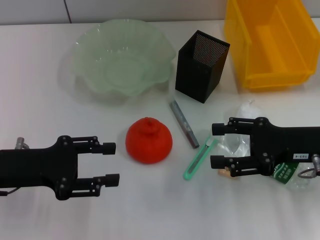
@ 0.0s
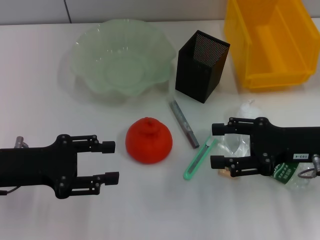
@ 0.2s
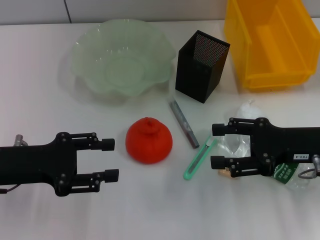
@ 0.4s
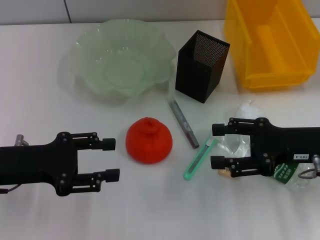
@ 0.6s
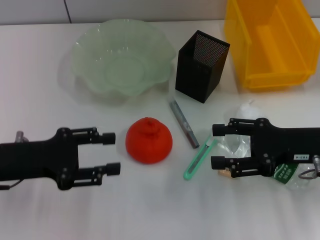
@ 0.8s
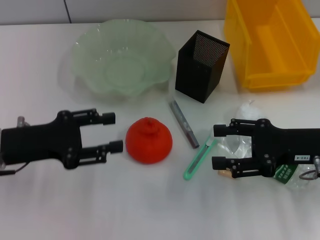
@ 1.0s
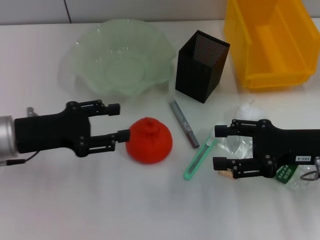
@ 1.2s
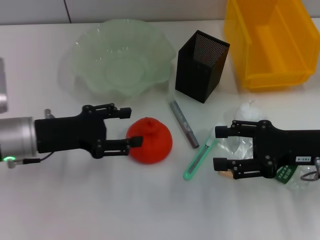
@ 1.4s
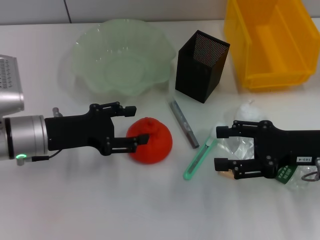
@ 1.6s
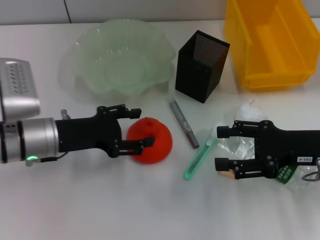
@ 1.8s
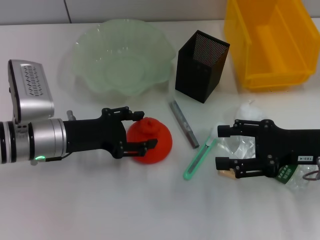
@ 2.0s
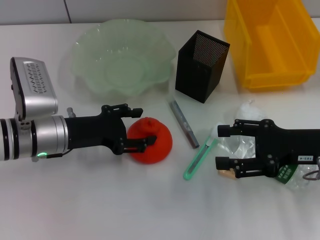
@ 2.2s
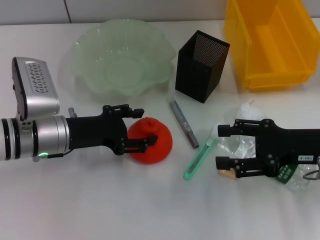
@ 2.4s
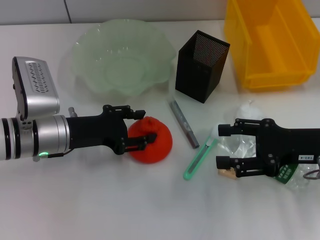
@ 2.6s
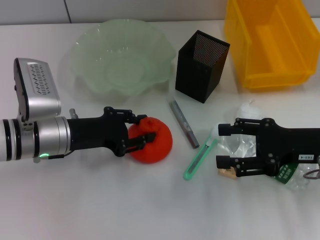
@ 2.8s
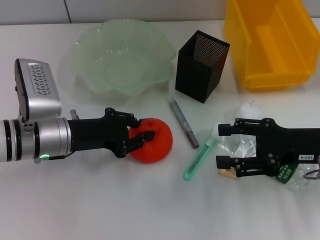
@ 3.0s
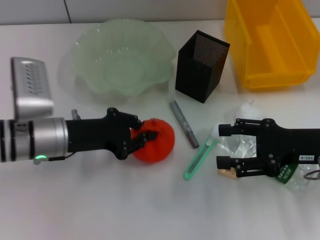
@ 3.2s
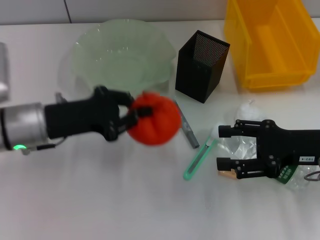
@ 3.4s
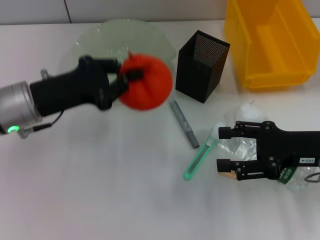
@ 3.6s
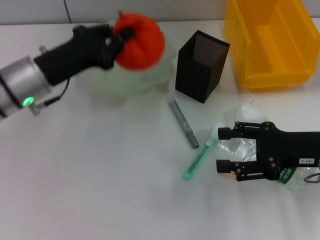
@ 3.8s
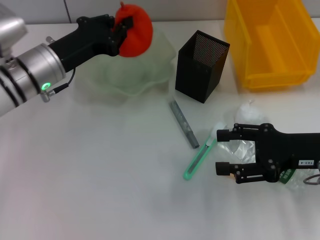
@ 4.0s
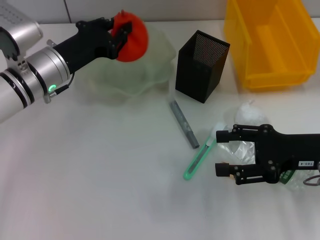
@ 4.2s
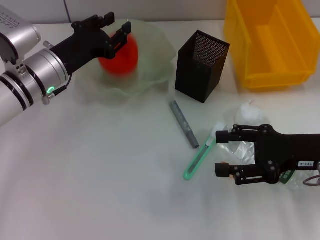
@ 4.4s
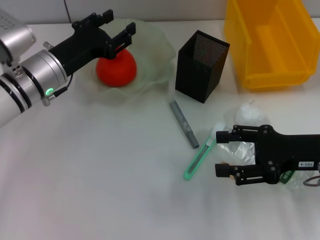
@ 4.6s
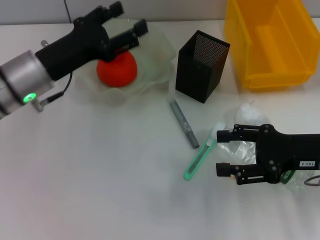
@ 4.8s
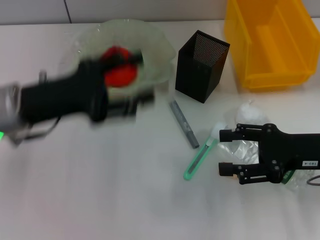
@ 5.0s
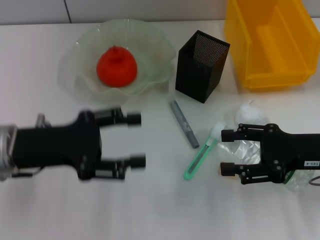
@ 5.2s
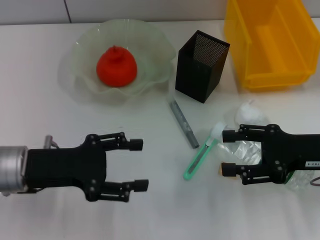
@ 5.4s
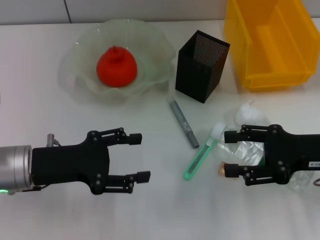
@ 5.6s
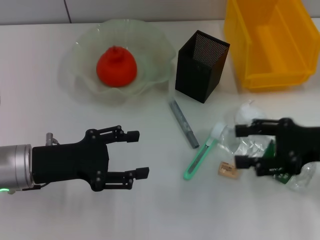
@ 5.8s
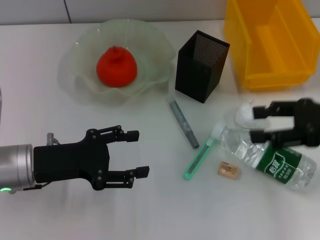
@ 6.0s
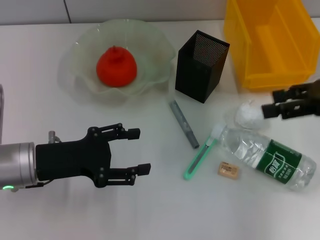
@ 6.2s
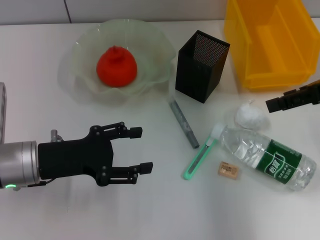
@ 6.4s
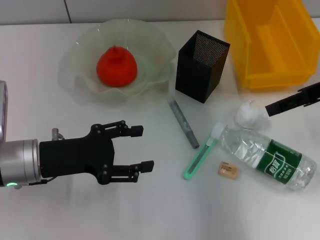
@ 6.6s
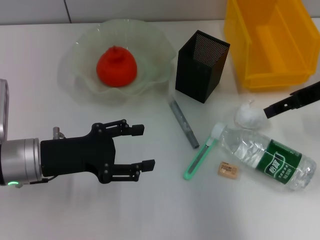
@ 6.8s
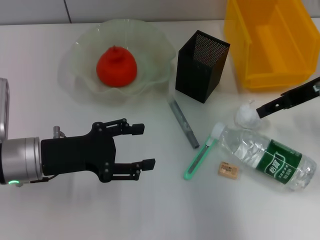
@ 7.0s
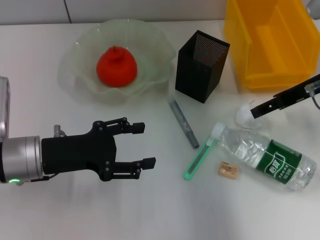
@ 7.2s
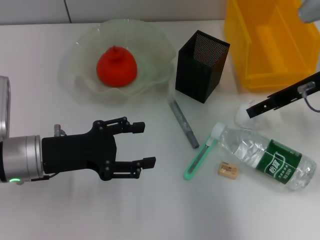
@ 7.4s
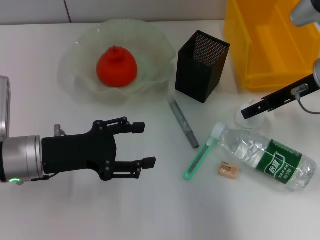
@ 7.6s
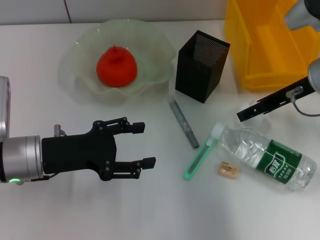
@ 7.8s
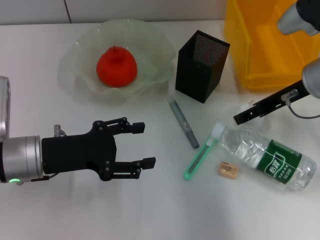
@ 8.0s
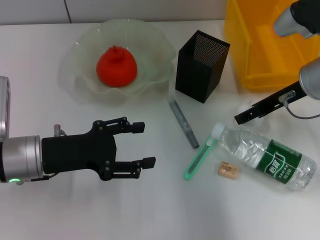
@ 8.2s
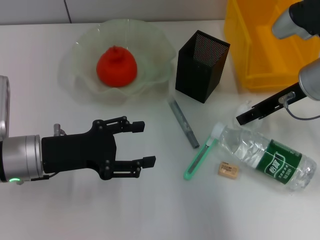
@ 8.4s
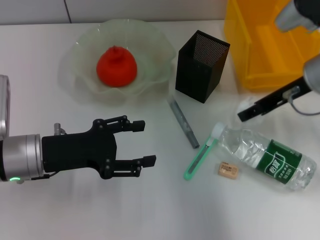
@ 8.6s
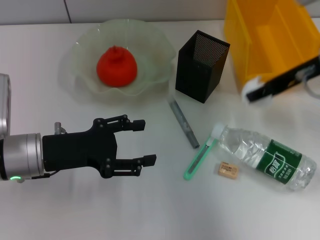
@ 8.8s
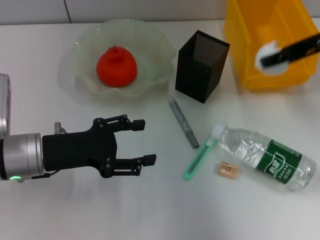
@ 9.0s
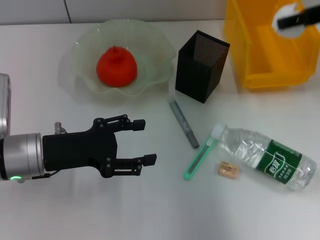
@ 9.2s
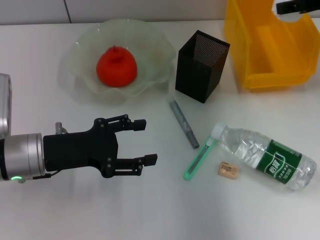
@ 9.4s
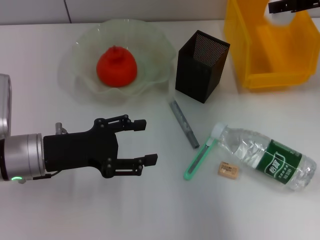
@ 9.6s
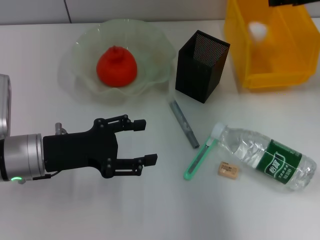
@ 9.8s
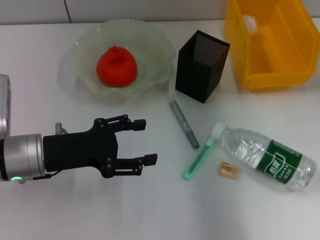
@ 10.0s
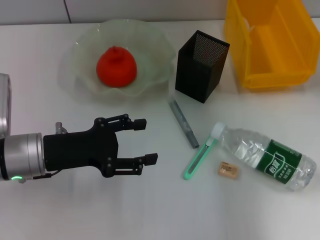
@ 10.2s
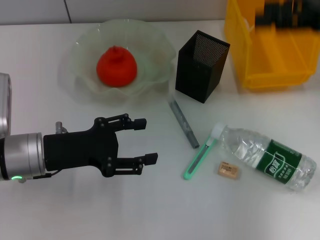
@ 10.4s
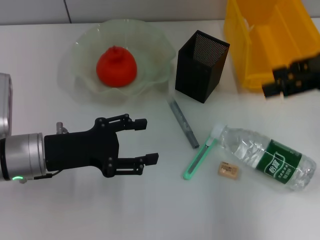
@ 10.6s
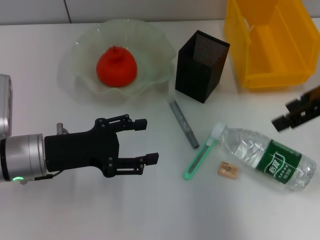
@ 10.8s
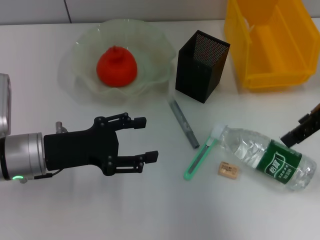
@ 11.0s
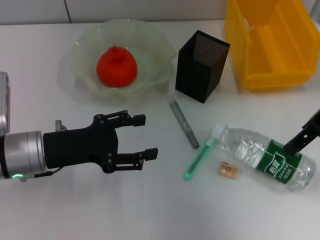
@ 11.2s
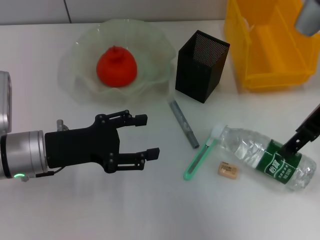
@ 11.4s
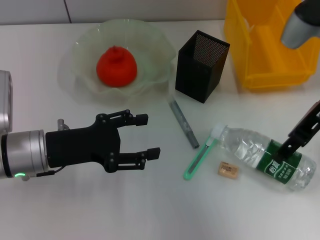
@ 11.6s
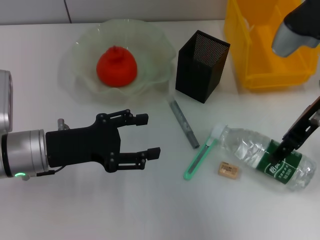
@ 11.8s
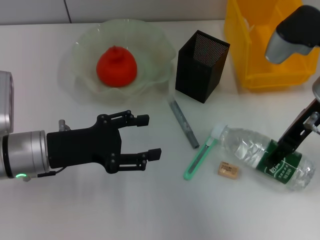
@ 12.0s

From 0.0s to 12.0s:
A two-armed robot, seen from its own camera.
Step, from 0.0s to 2.8s: Grab the orange with the left hand.
Step, from 3.0s to 4.4s: Place the orange into the fruit bowl with the left hand.
Step, from 4.6s to 8.2s: Grab the paper ball with the right hand.
Step, from 8.4s to 9.8s: Place the paper ball into the trash can with the right hand.
From 0.0s to 1.6s: The left gripper changes place by roughly 5 cm.
From 1.6s to 3.0s: The left gripper closes up.
From 3.0s to 4.4s: The left gripper travels forward by some 5 cm, and closes its fingers.
From 4.4s to 6.0s: The left gripper moves backward, some 10 cm, and opens up. The right gripper moves upward, some 5 cm.
From 6.0s to 7.6s: The right gripper heads forward and to the left, covering roughly 10 cm.
From 7.6s to 9.0s: The right gripper goes approximately 10 cm upward, and closes up.
From 9.0s to 10.4s: The right gripper reaches some 5 cm forward, then returns, and opens its fingers.
From 10.4s to 12.0s: The right gripper goes some 10 cm to the left and downward.

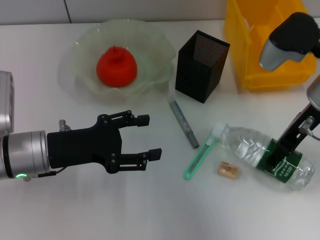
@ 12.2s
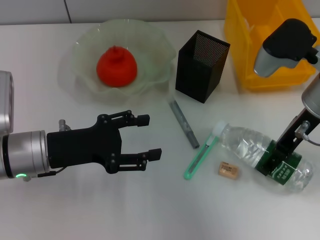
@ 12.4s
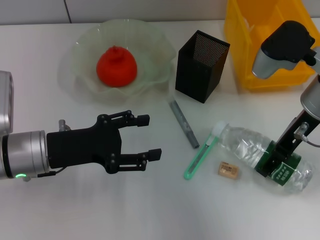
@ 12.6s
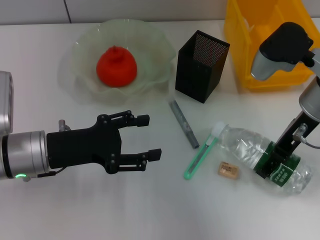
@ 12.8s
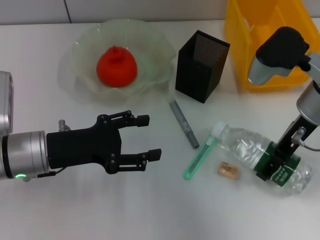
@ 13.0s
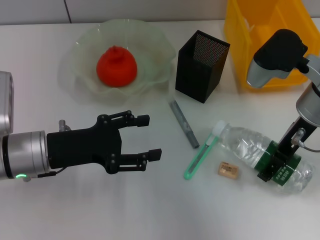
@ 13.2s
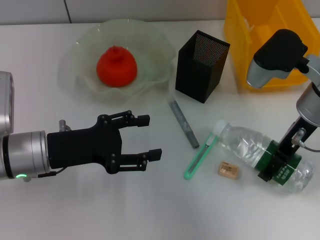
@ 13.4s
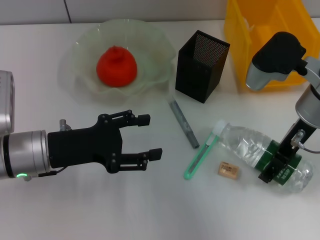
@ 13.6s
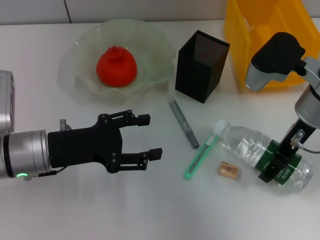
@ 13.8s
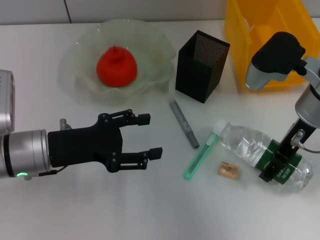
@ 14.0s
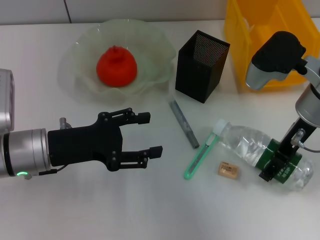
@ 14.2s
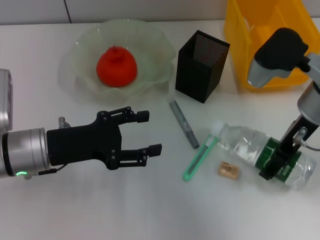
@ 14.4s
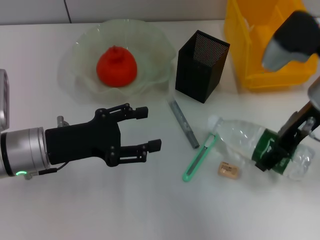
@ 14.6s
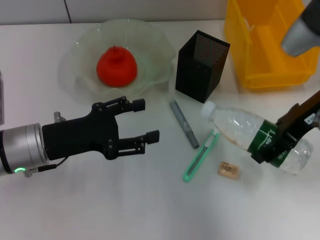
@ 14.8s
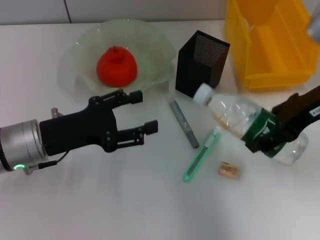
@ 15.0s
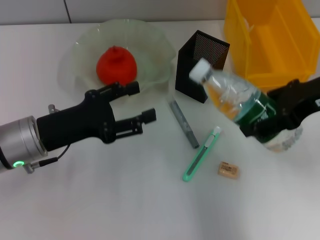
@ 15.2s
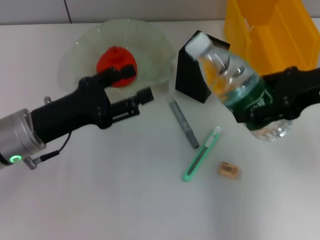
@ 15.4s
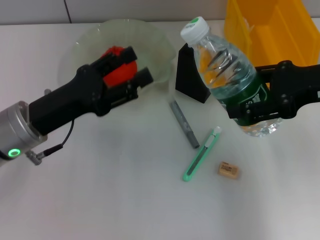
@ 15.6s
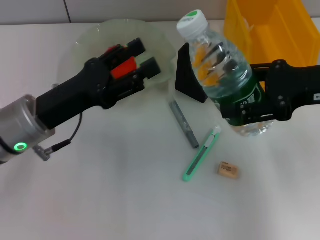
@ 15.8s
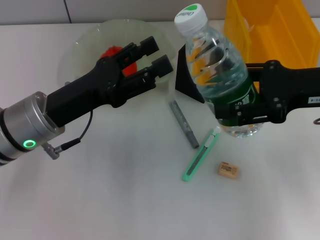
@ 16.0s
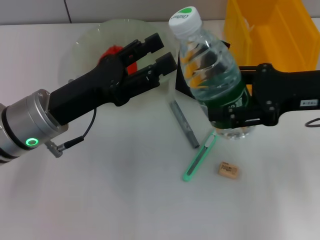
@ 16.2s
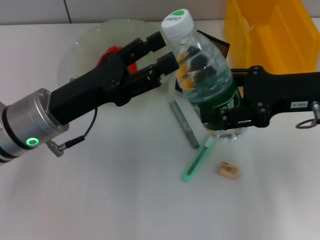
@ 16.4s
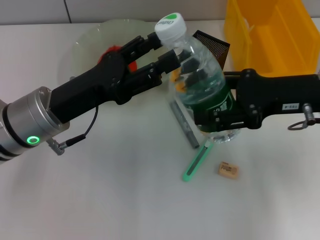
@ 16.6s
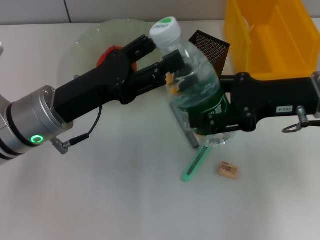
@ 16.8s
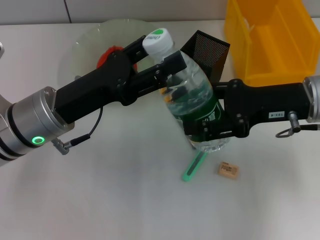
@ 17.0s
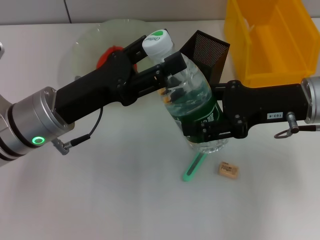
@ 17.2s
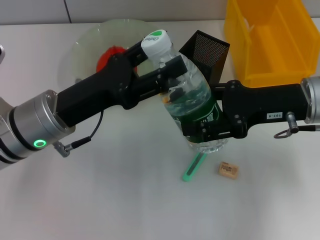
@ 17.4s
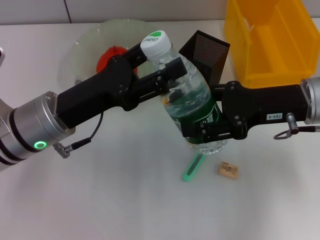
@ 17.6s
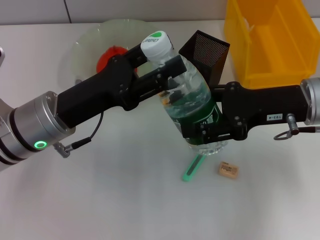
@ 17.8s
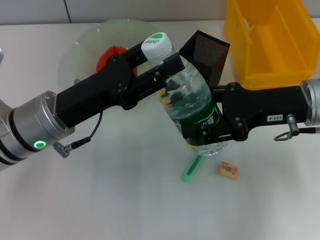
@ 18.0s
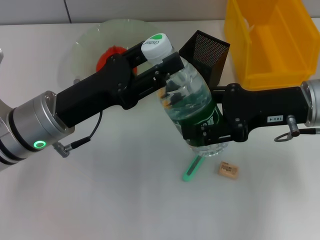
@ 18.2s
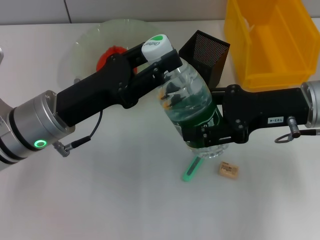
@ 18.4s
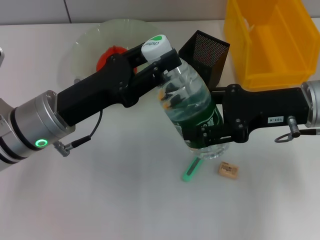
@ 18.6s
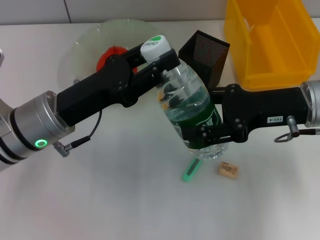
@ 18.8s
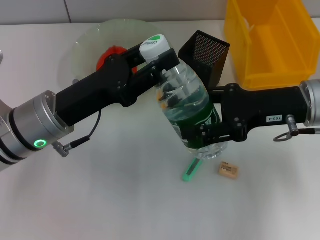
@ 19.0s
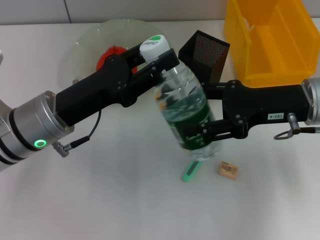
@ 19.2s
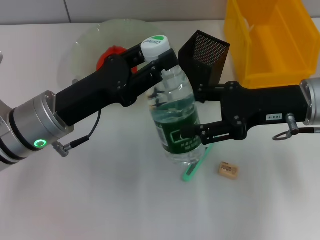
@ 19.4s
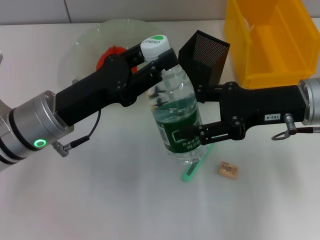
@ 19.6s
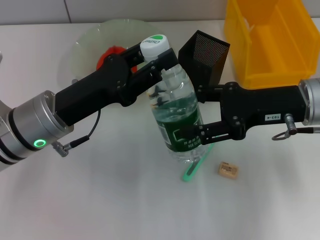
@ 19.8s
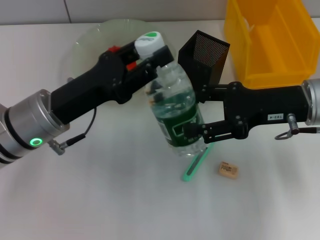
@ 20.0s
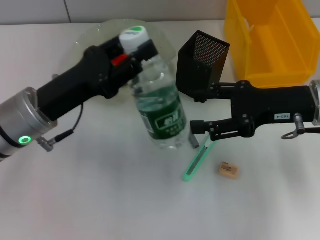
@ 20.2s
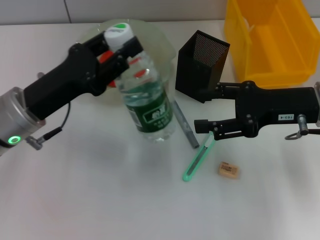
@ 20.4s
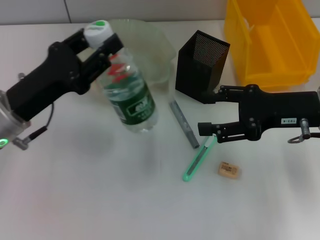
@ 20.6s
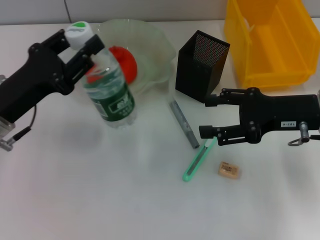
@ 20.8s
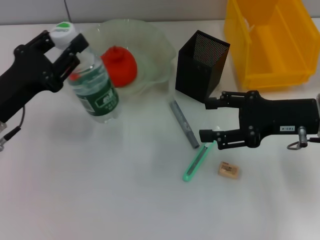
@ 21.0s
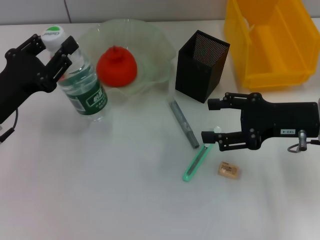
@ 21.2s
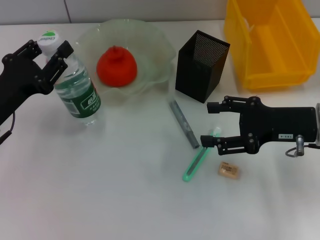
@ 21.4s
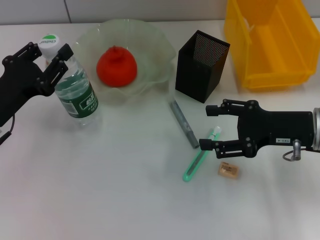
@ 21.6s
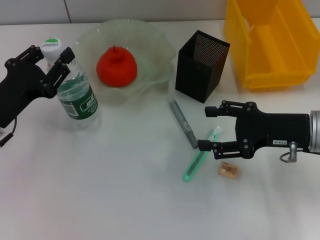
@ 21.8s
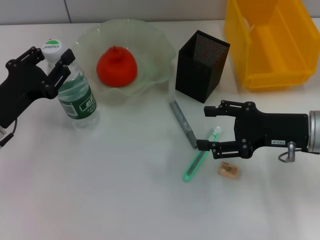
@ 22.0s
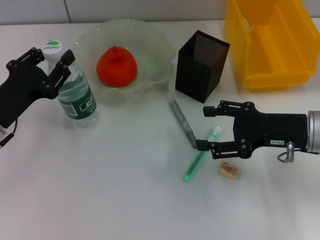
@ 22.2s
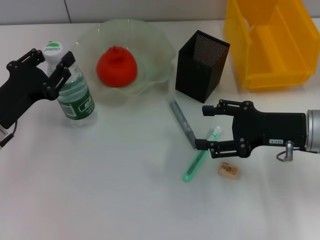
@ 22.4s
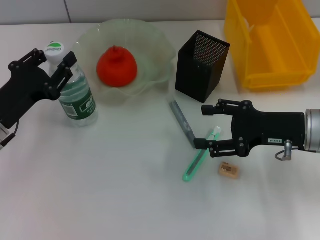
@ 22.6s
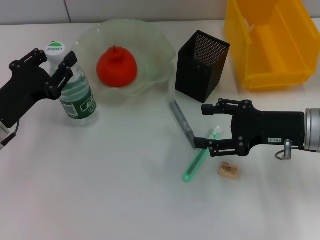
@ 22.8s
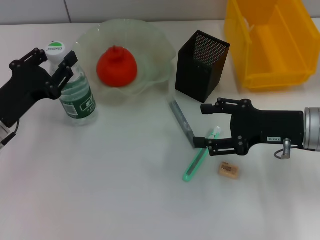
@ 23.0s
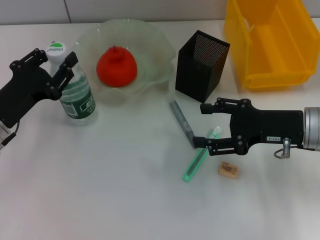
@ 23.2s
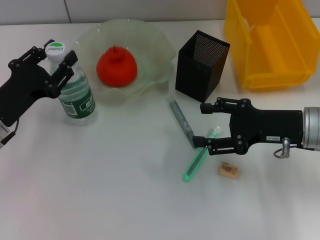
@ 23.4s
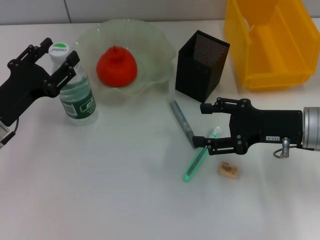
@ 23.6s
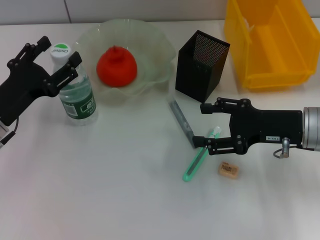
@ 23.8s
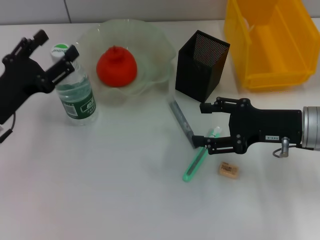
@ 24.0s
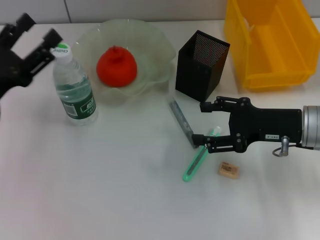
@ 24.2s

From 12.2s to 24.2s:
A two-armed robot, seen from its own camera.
Step, from 12.2s to 14.2s: Grab the water bottle with the right hand.
Step, from 14.4s to 20.0s: Pass the water bottle from the right hand to the left hand.
Step, from 20.2s to 23.6s: Place the water bottle on the table with the left hand.
From 12.2s to 13.8s: The grippers move only a little.
From 13.8s to 15.2s: The right gripper moves upward and to the right, about 10 cm.
From 15.2s to 16.6s: The right gripper is displaced downward by about 5 cm.
From 16.6s to 18.2s: There are only small adjustments of the grippers.
From 18.2s to 19.8s: The left gripper closes its fingers.
From 19.8s to 21.2s: The left gripper is displaced to the left by some 10 cm.
From 21.2s to 22.6s: The grippers make only small movements.
From 22.6s to 24.2s: The left gripper opens.
